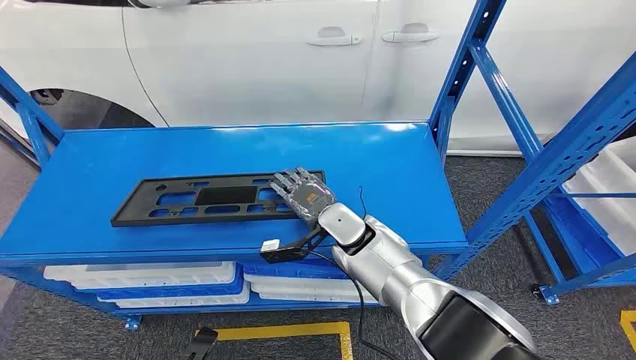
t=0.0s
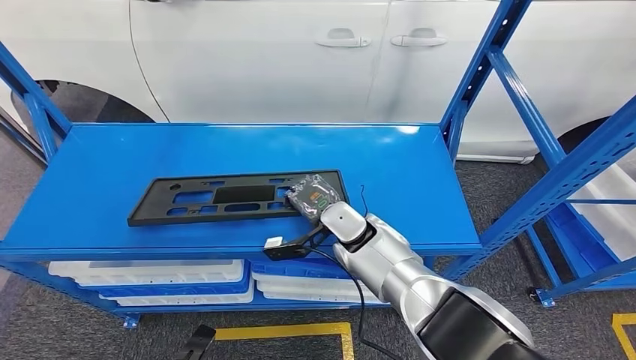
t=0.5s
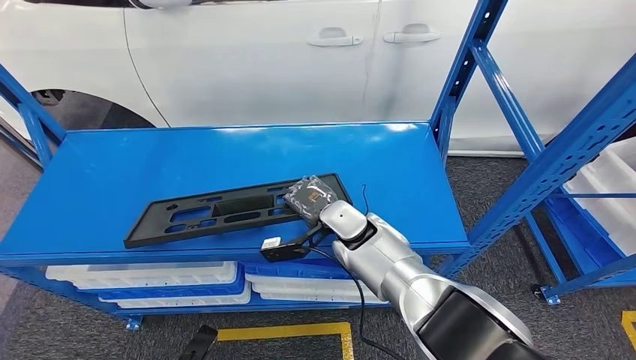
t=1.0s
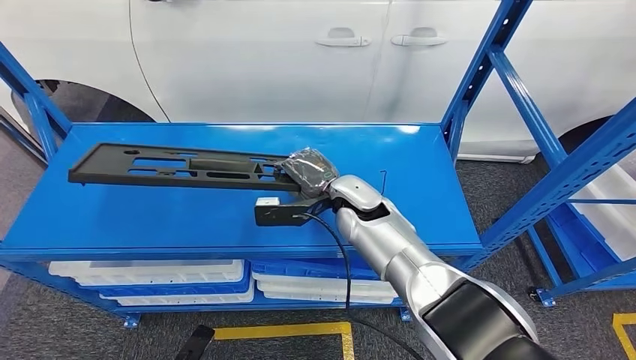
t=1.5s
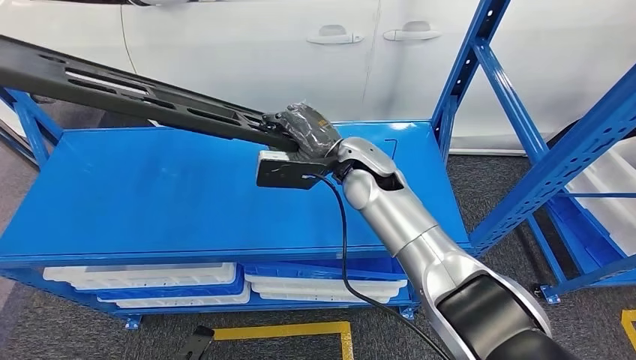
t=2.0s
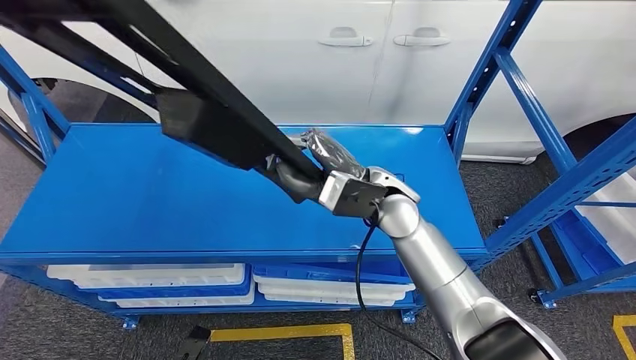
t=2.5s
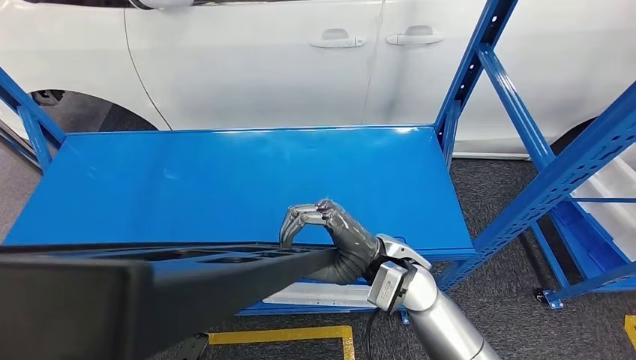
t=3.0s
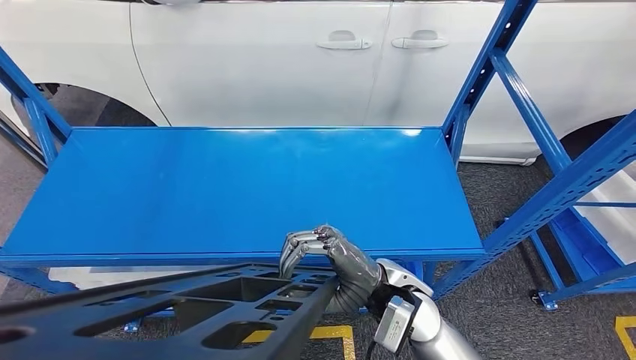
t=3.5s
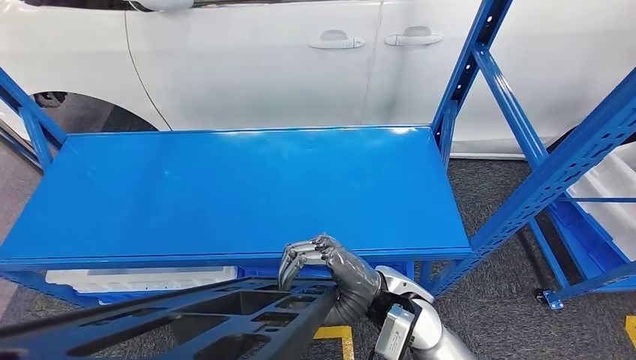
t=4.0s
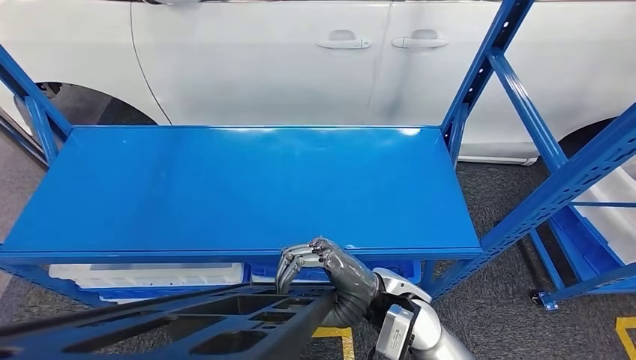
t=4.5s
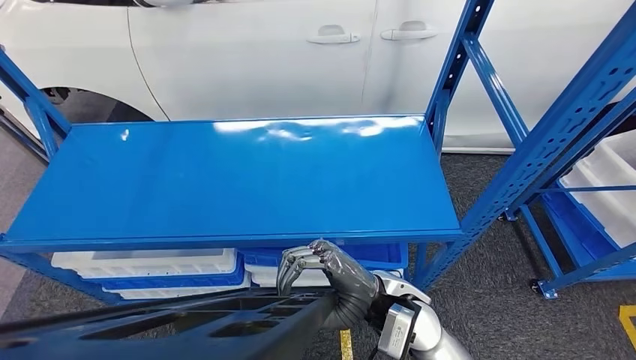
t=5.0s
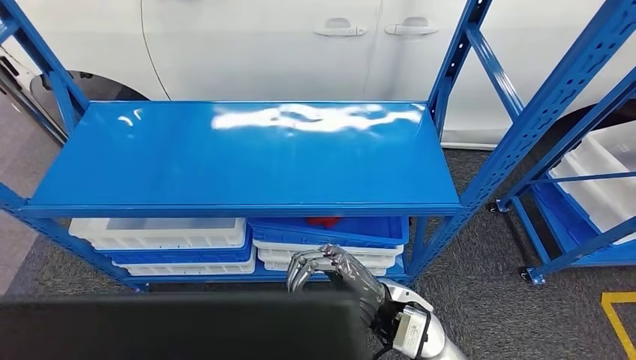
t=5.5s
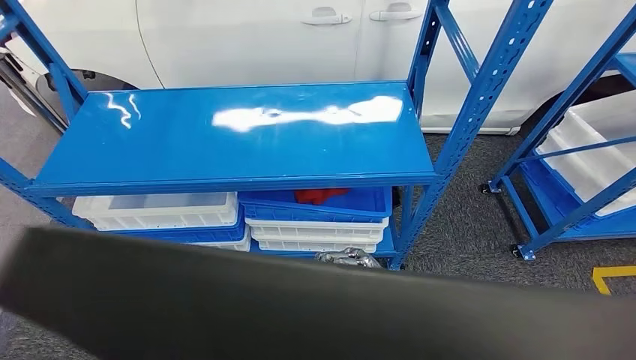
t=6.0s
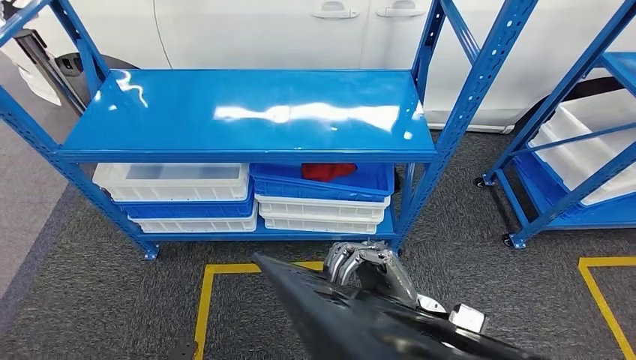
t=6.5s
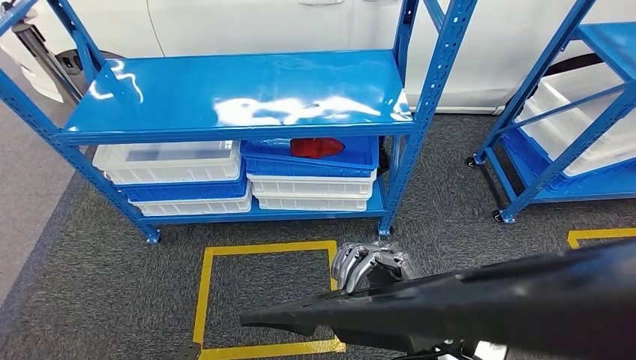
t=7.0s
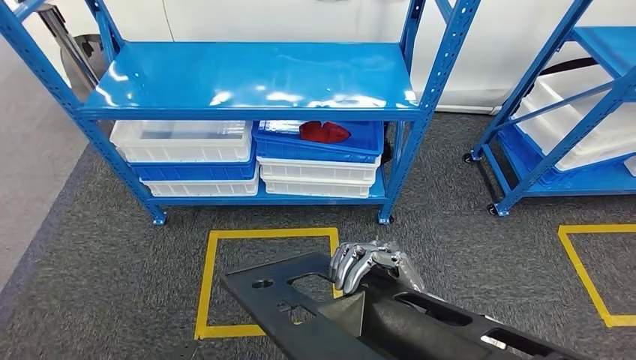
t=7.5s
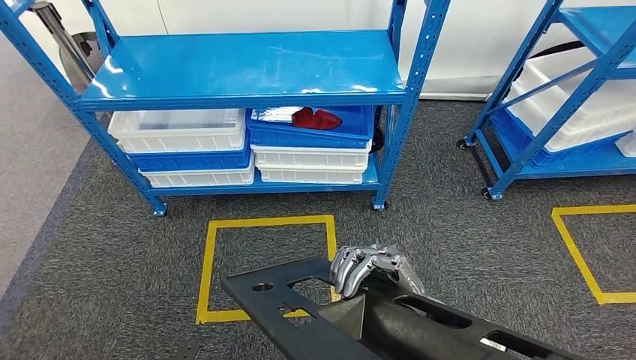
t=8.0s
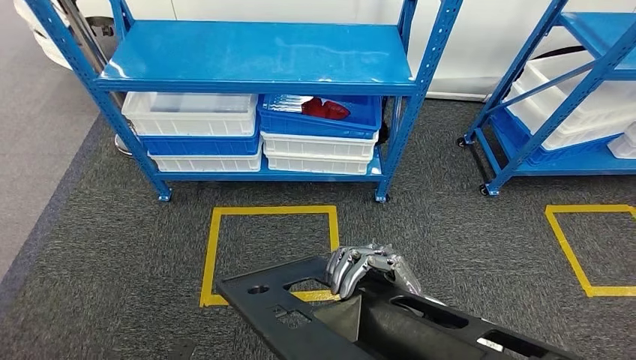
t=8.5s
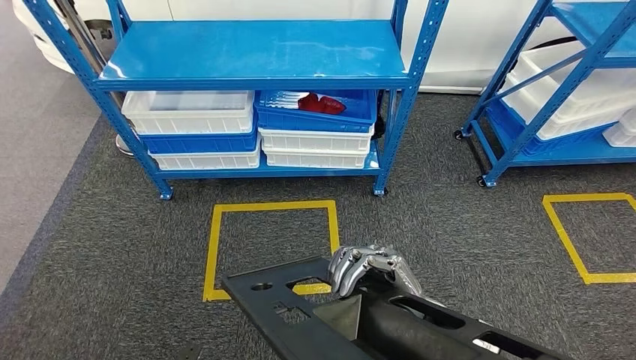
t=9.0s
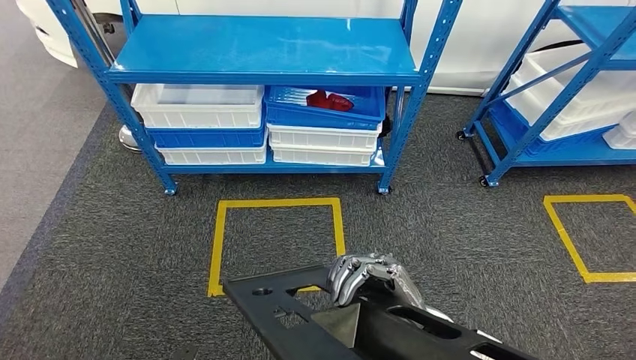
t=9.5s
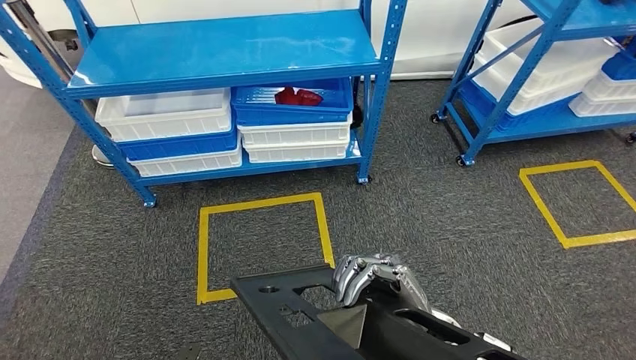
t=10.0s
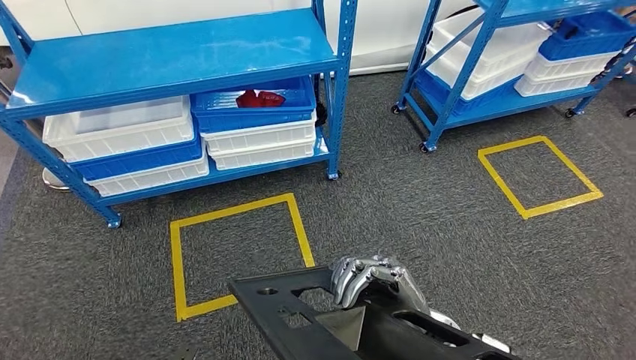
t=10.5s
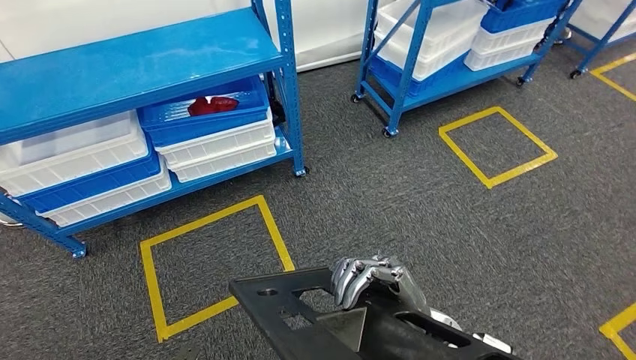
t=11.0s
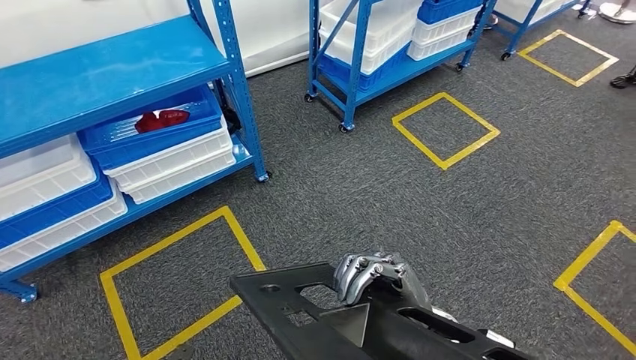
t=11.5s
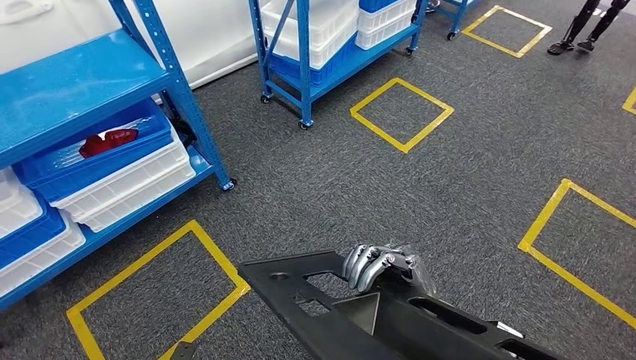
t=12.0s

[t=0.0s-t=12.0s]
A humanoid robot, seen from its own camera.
Step, t=0.0s to t=3.0s: Pick up the large material from the shelf.

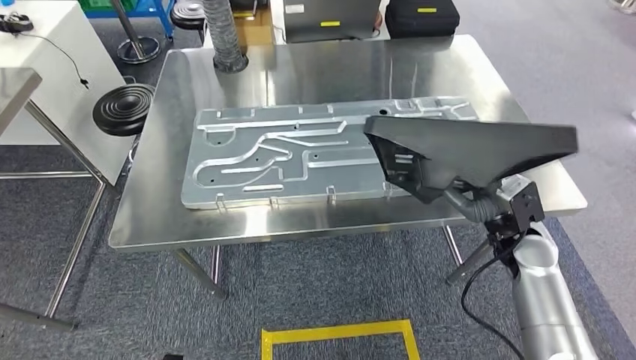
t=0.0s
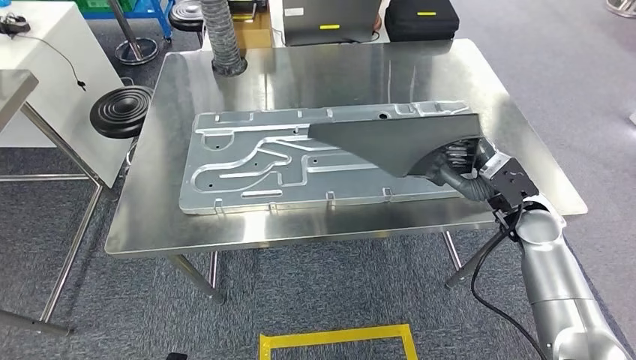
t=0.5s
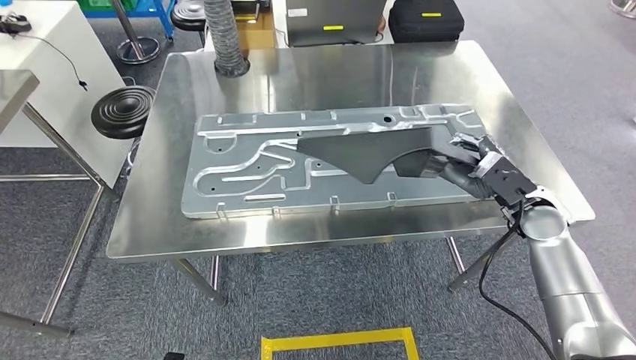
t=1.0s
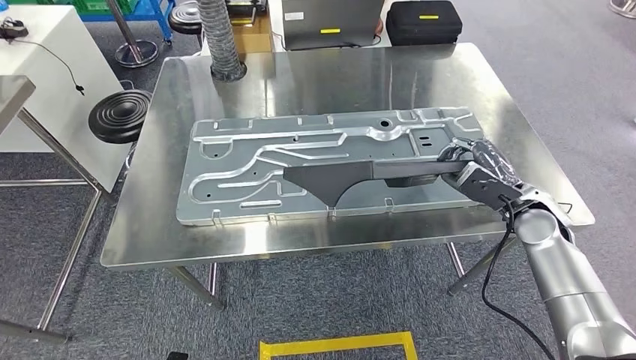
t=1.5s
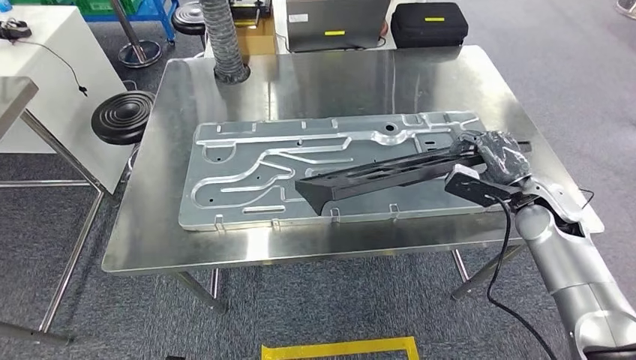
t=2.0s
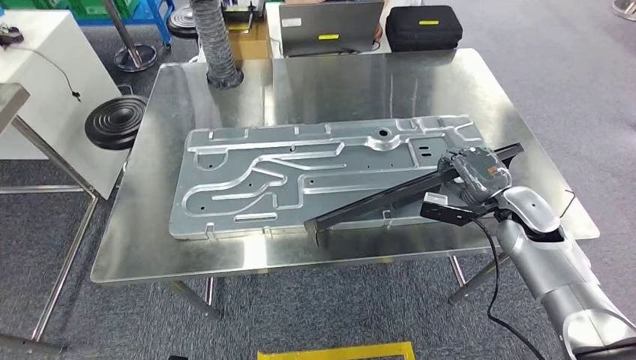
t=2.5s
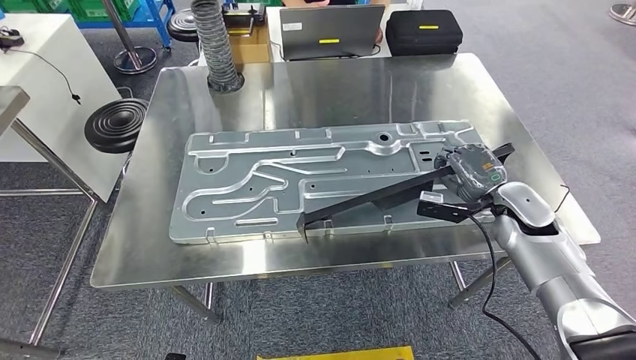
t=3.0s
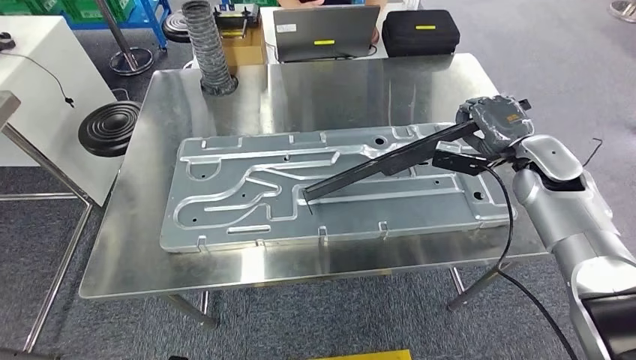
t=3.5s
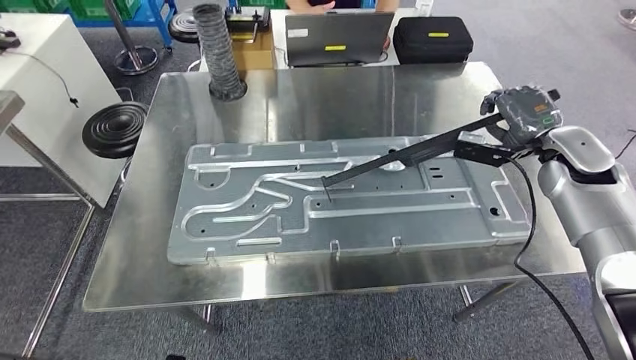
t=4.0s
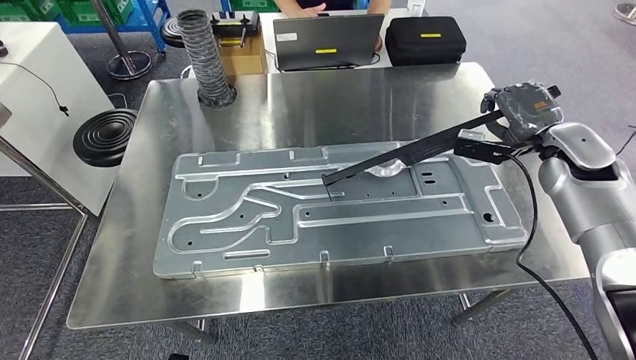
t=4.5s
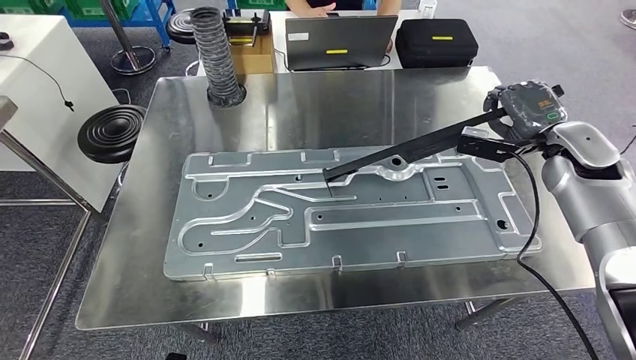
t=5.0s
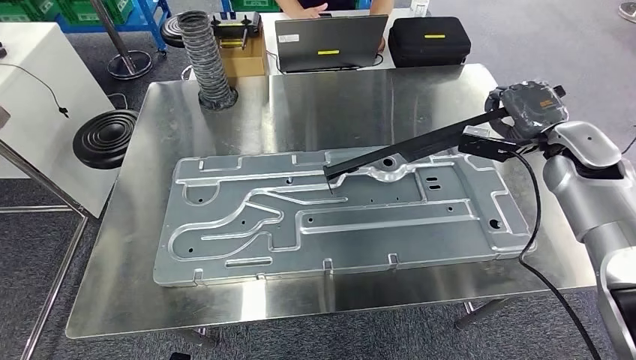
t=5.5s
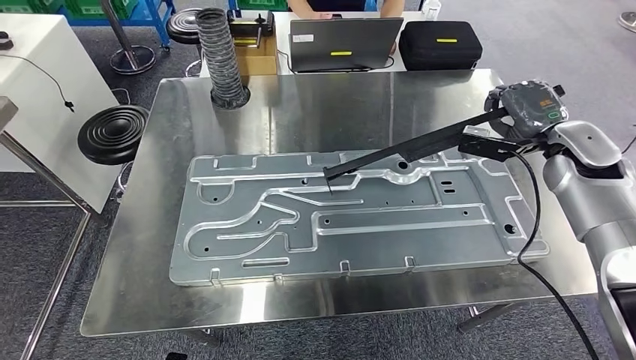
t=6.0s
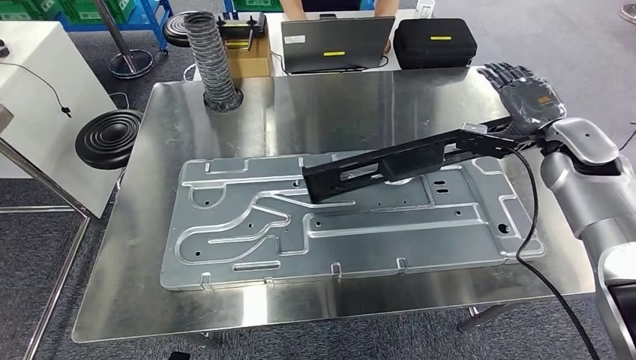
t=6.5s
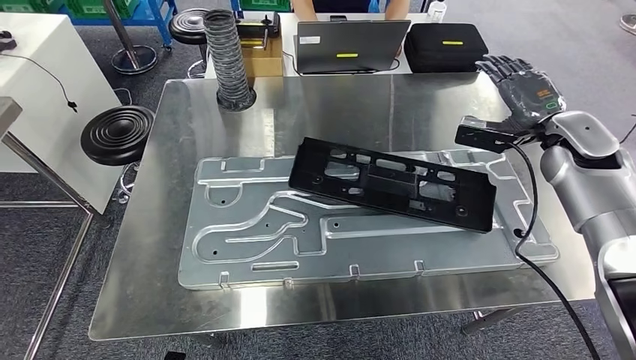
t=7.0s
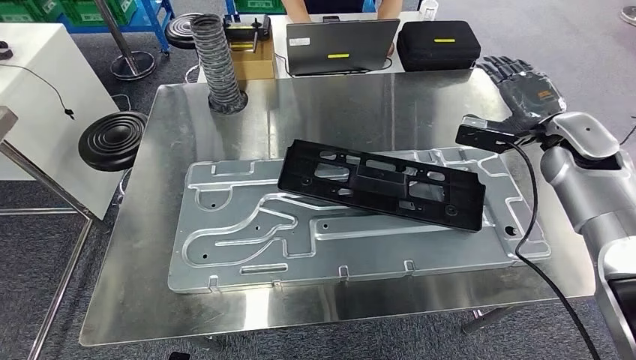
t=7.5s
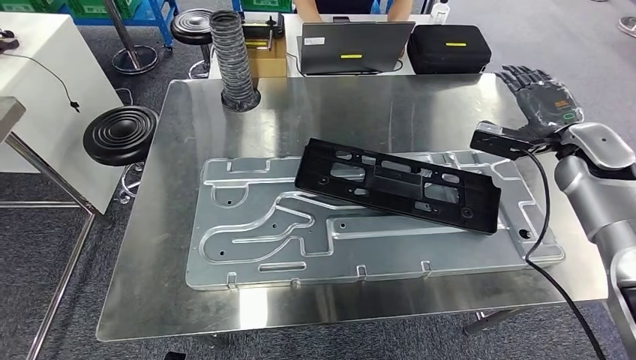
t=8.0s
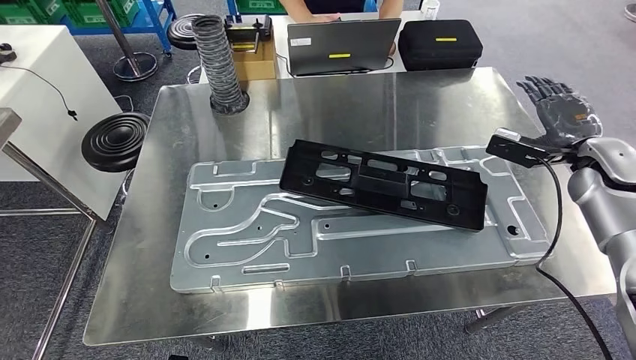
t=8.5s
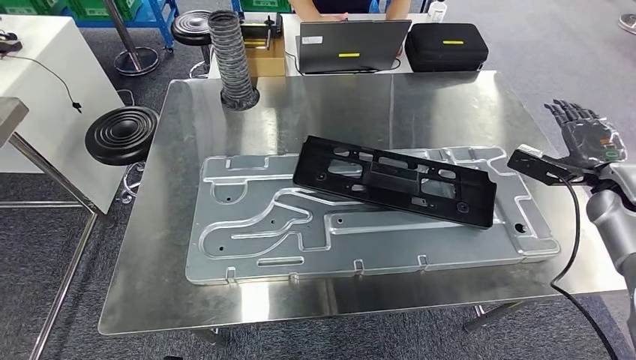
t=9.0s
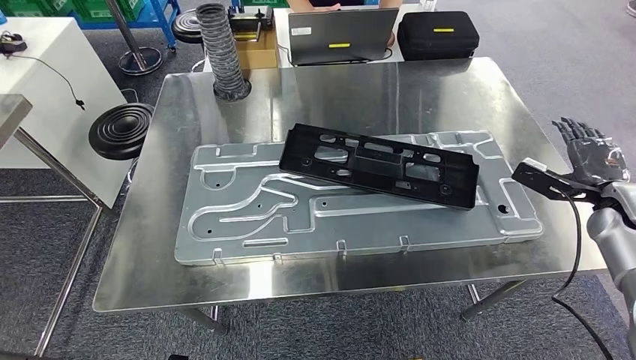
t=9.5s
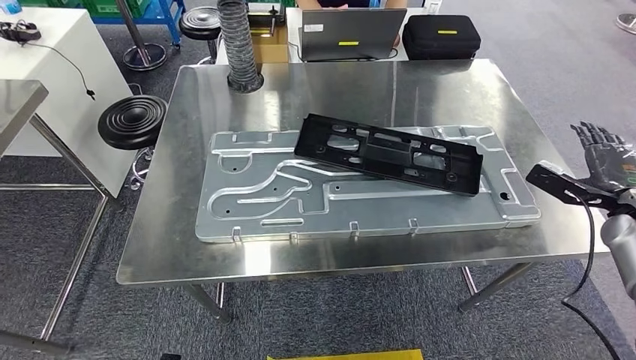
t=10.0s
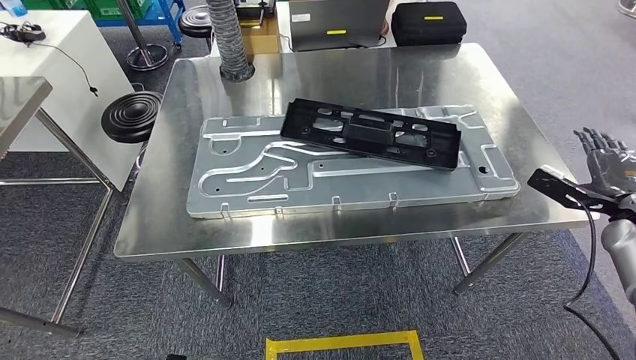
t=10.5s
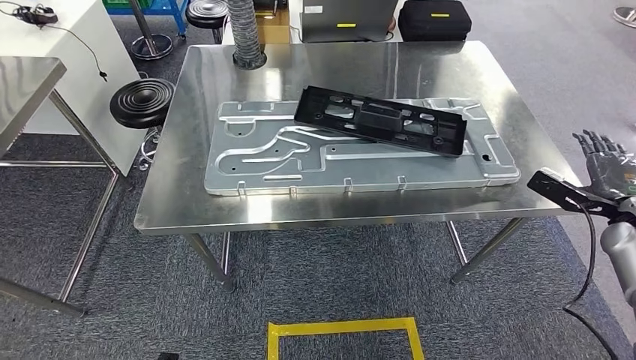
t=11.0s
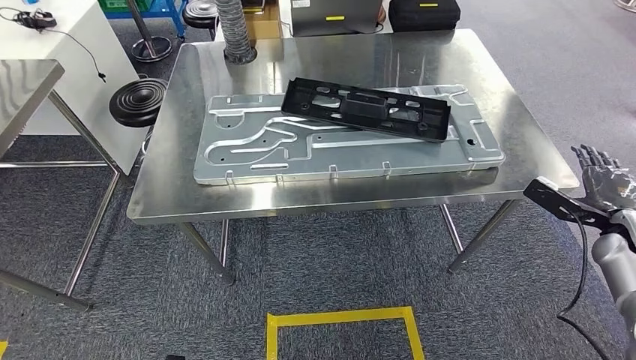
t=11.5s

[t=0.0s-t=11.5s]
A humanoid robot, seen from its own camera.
Step, t=2.0s to t=8.0s: Insert the large material into the corresponding slot on the workbench.
